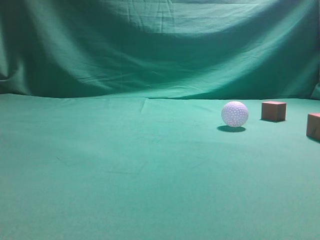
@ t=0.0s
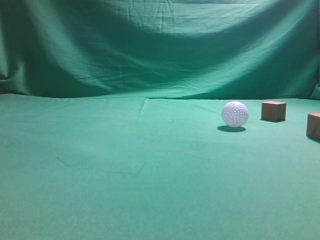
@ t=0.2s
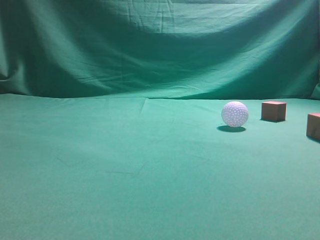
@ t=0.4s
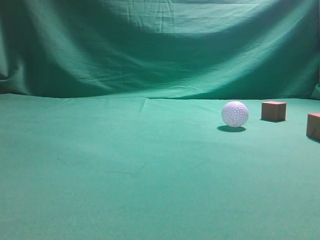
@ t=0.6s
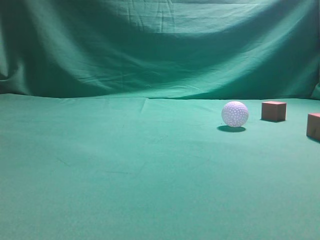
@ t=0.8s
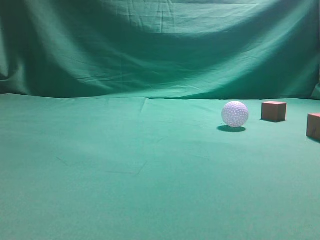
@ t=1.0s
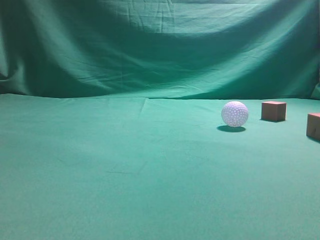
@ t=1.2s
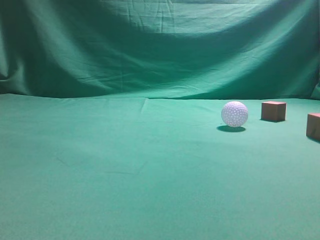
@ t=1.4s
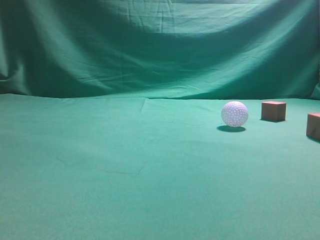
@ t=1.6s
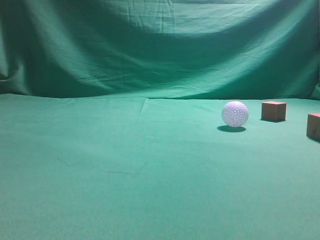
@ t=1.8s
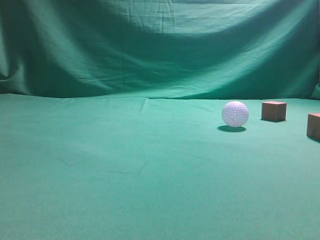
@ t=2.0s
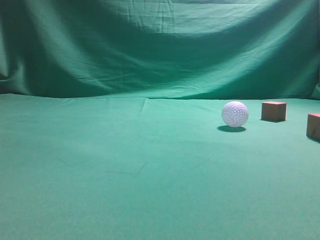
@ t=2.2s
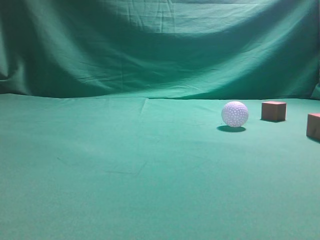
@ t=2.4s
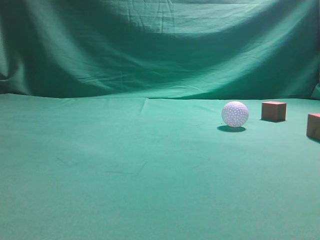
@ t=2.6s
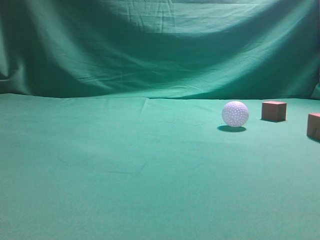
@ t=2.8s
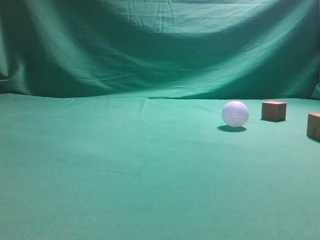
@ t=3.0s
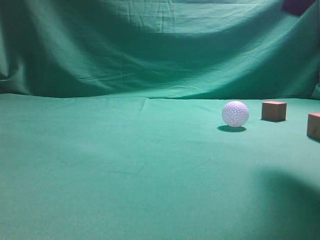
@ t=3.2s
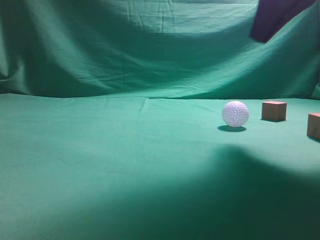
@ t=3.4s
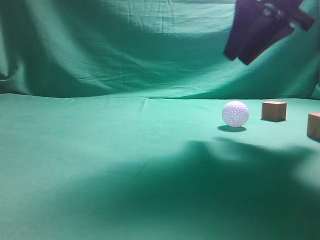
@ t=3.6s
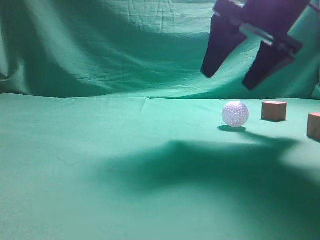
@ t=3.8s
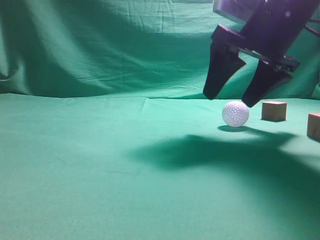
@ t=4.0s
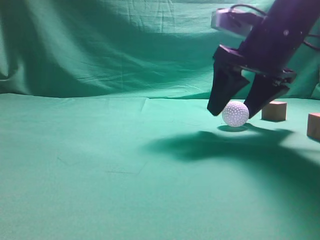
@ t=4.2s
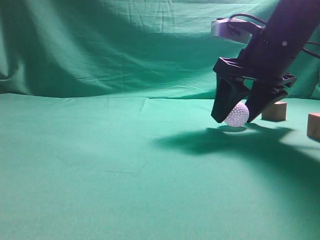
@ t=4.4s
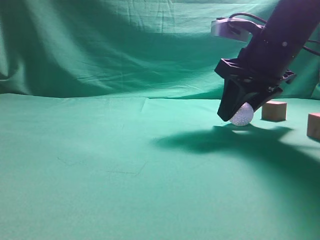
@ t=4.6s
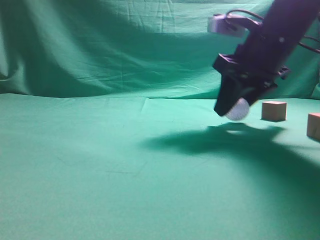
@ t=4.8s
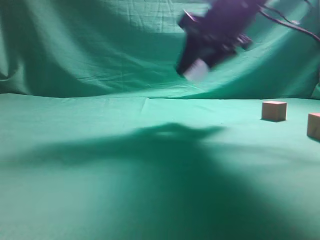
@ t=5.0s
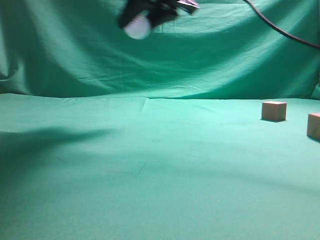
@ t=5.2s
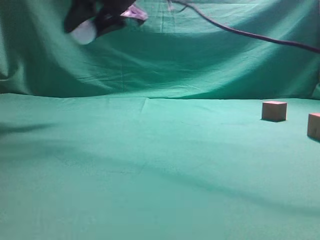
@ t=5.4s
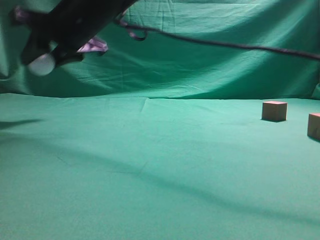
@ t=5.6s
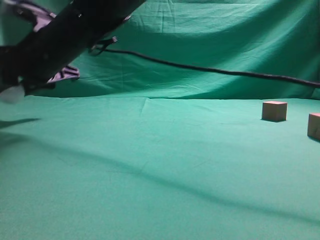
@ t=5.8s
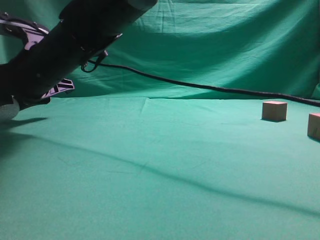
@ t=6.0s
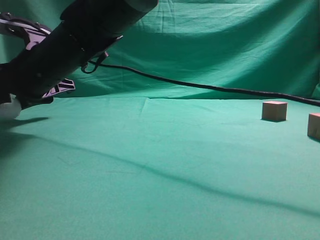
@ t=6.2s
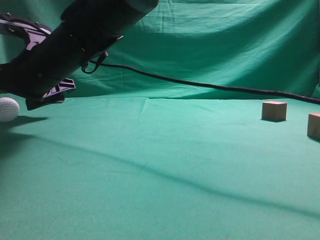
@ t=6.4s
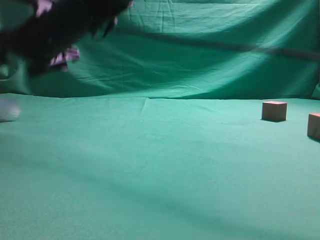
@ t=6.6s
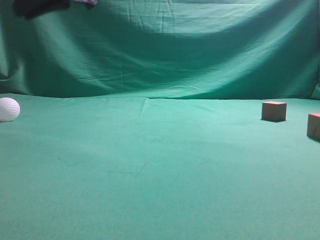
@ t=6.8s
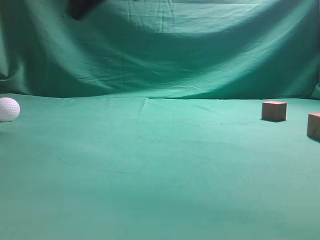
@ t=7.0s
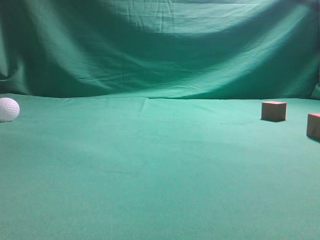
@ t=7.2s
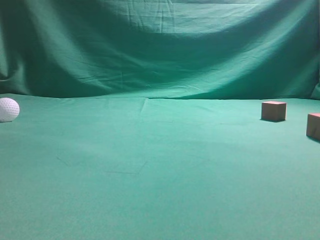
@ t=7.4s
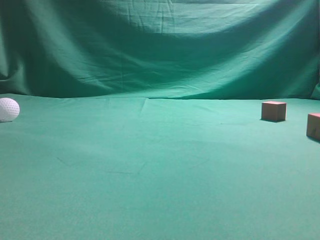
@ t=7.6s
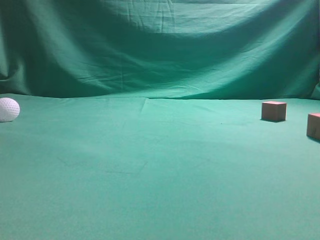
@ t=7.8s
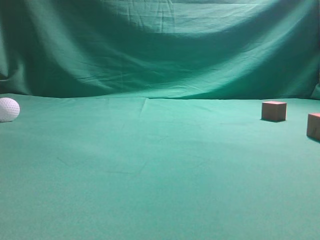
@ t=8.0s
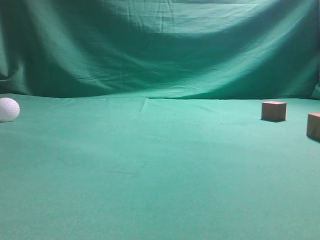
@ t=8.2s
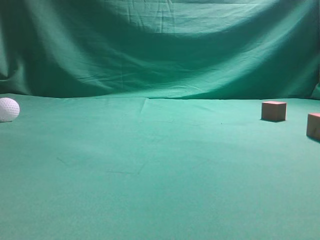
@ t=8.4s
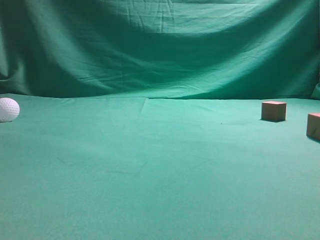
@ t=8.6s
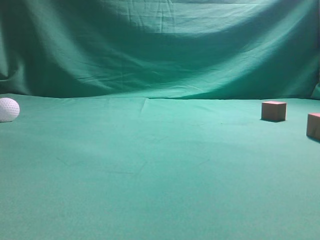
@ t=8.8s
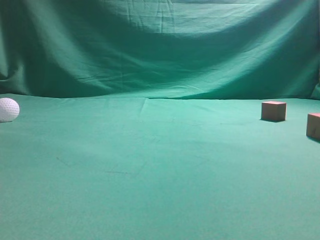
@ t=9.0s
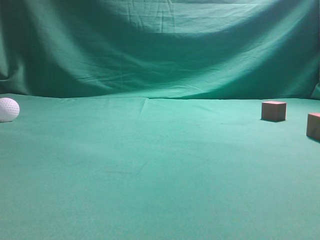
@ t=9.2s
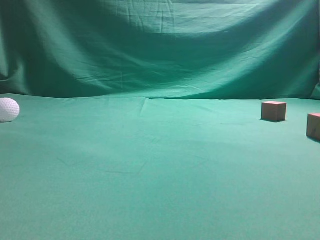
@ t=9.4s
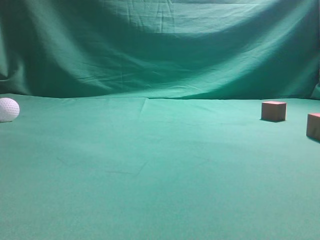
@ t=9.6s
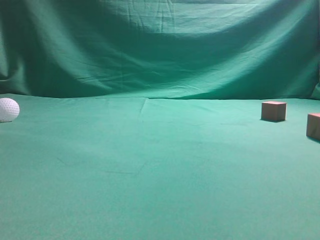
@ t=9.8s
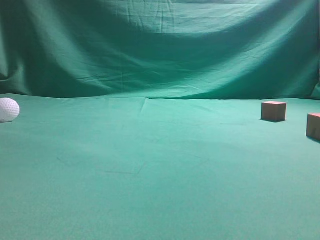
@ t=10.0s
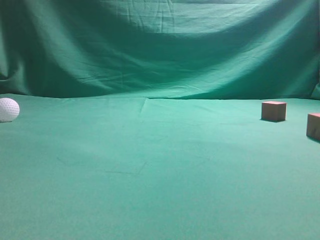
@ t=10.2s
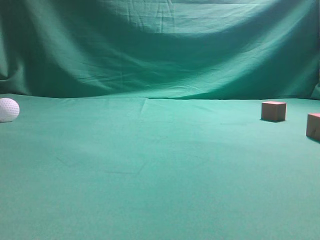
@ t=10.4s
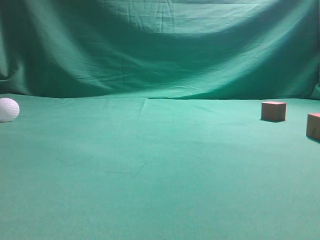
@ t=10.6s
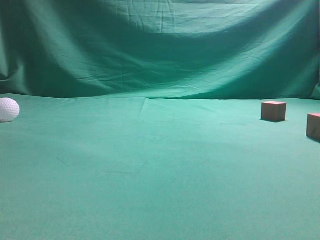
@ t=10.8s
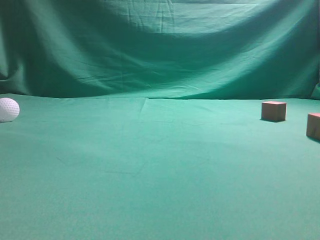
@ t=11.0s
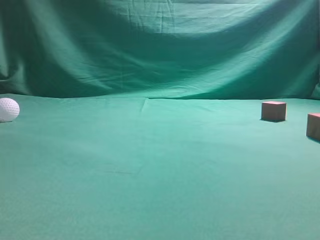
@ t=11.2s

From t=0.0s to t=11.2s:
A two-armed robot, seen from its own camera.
Step, from t=0.0s to t=4.8s: Grasp the spherical object on the right side.
From t=1.6s to t=3.2s: The right gripper moves forward and to the left, roughly 25 cm.
From t=3.2s to t=4.8s: The right gripper goes some 10 cm to the left and forward, and opens.
From t=4.8s to t=6.4s: The right gripper is displaced to the left by some 25 cm, and opens up.
From t=6.4s to t=8.0s: The right gripper travels to the right, upward and backward by about 40 cm, and closes its fingers.
